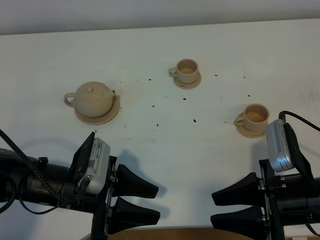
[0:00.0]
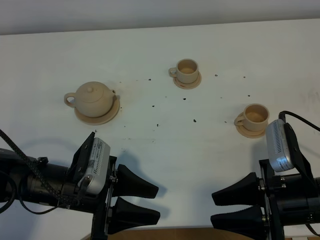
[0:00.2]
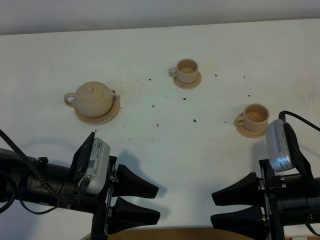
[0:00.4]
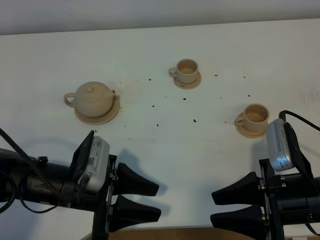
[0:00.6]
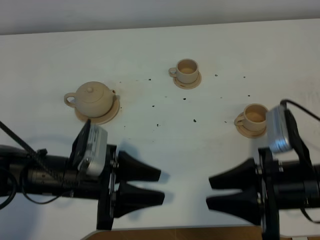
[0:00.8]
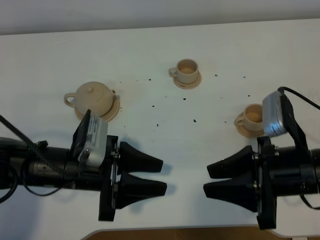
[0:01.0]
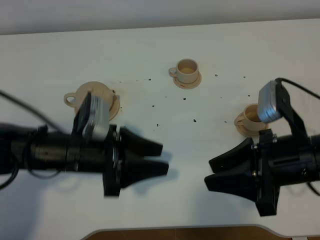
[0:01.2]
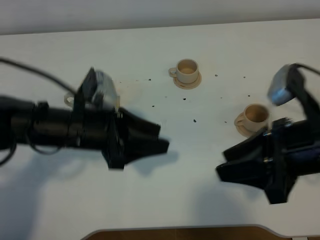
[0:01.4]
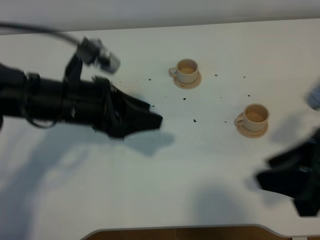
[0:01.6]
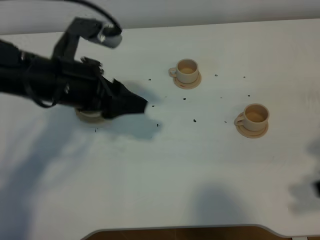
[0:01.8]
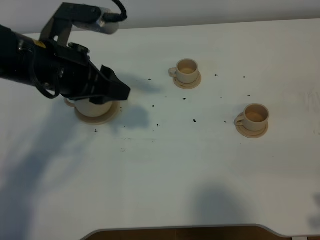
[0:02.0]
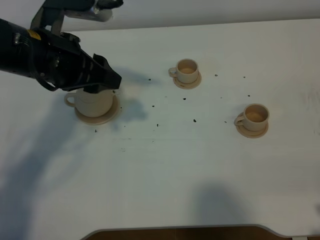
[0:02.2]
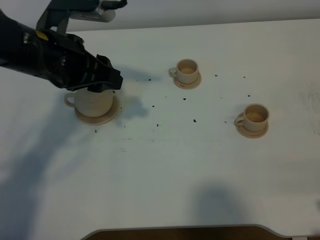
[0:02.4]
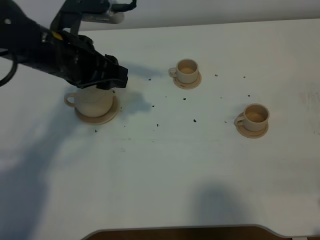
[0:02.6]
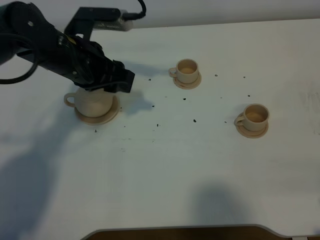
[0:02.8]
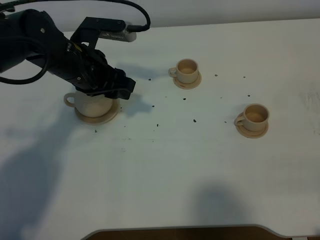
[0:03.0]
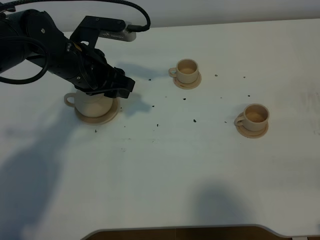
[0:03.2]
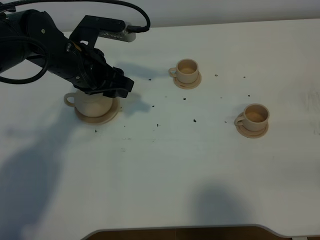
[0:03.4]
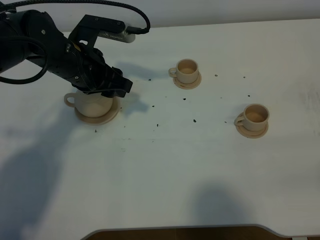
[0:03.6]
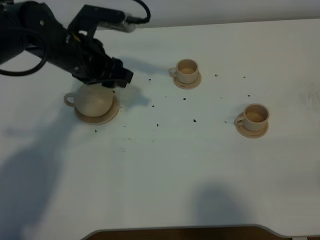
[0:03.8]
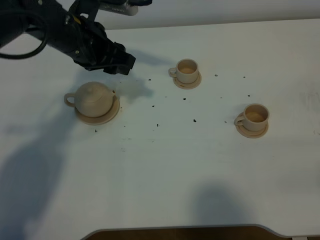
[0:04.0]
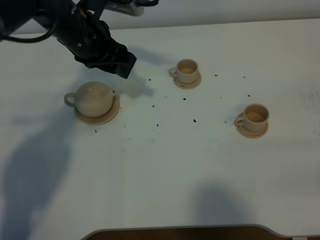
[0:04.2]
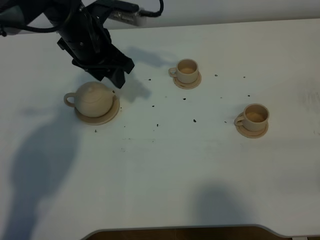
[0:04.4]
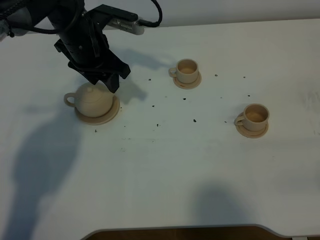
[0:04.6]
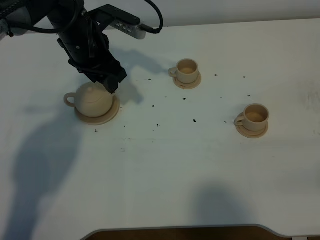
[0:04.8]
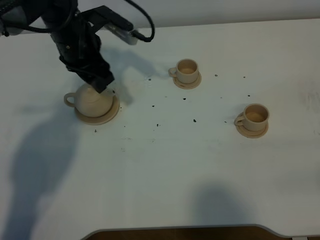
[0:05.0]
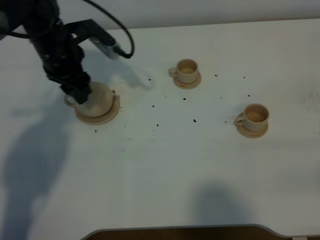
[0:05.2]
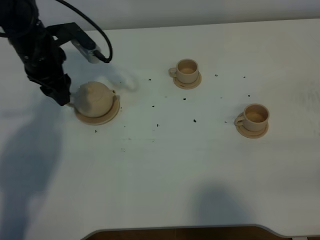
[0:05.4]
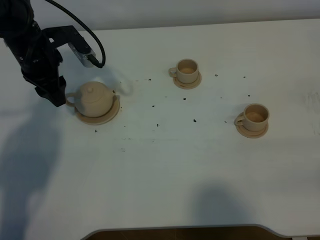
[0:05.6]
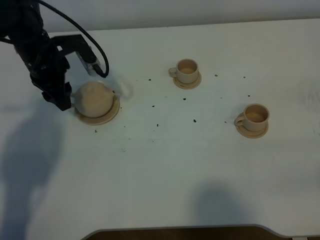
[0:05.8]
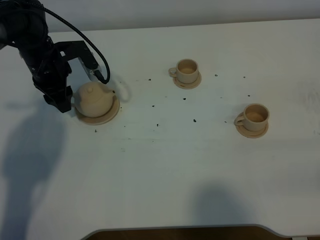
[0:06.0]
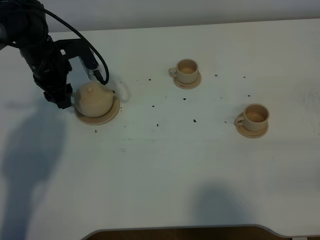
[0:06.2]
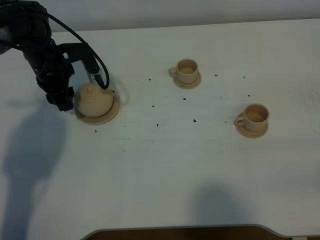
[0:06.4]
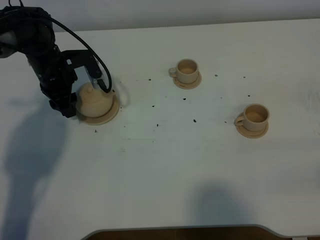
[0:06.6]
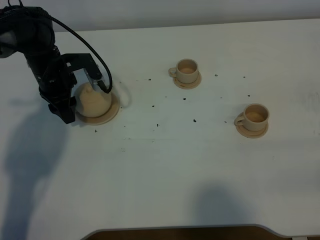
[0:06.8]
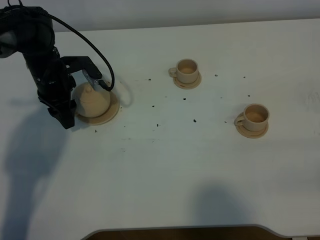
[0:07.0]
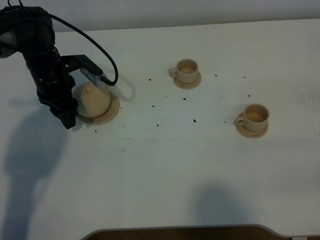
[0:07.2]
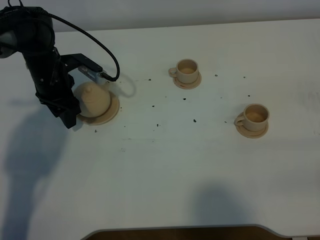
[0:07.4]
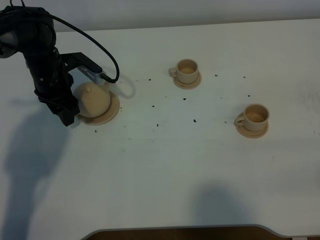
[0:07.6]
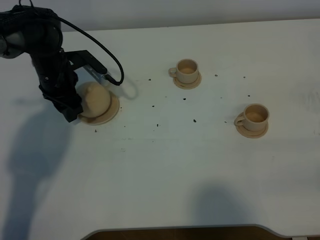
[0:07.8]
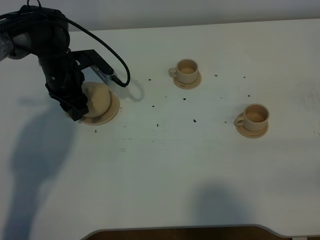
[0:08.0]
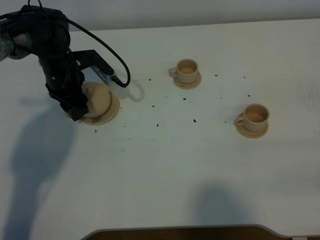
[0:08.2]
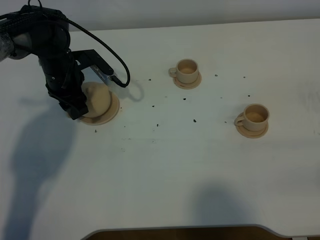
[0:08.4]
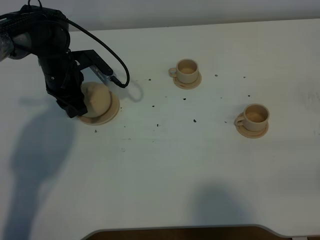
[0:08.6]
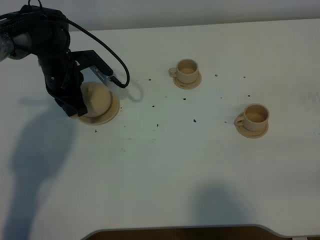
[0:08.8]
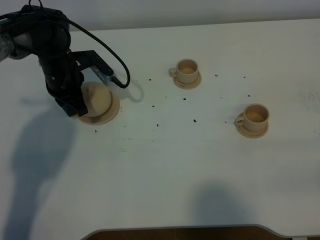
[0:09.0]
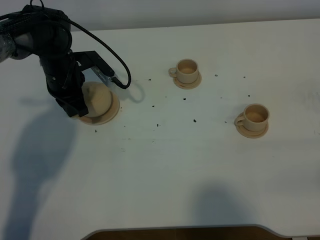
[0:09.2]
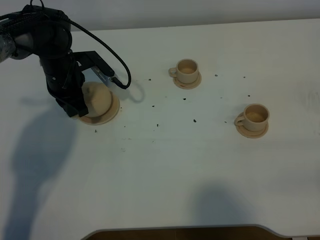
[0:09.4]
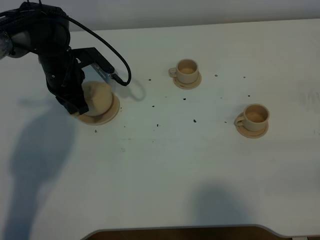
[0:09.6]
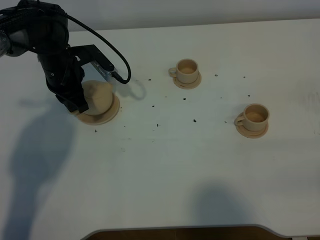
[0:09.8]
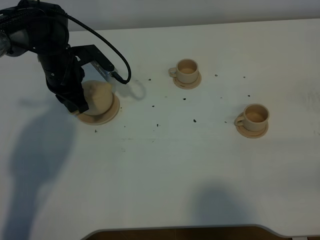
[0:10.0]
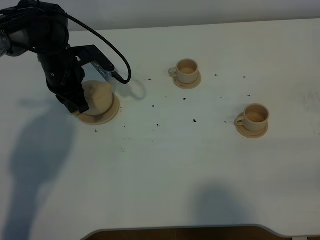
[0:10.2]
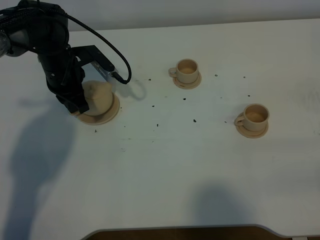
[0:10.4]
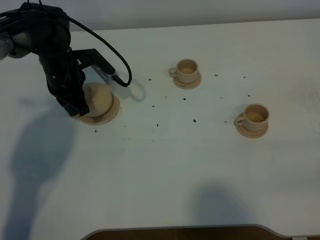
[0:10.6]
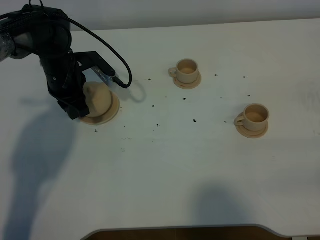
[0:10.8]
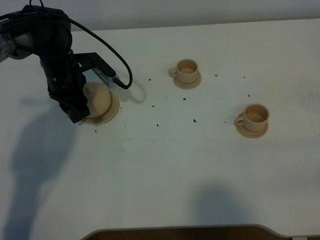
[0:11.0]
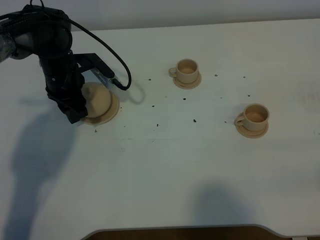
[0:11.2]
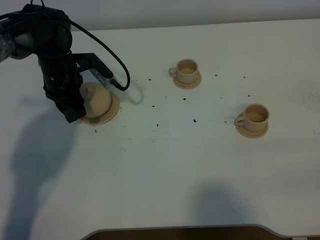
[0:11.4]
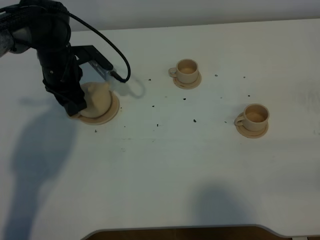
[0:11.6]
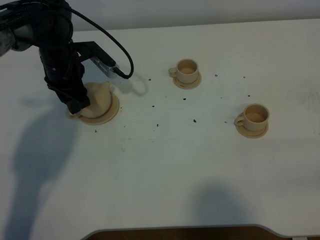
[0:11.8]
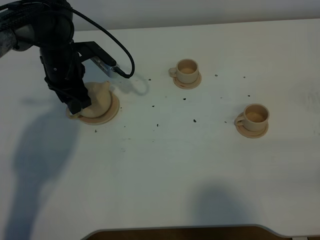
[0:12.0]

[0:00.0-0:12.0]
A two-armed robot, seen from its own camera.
Task of the whole recording: grasp the brown teapot and pour the tea into the two brown teacups one by one, put the brown teapot back in its original place.
0:00.0 to 0:01.6: The left gripper moves upward and forward, approximately 15 cm, while the right gripper is displaced upward by roughly 10 cm.
0:01.6 to 0:03.0: The right gripper is displaced backward and to the right by roughly 10 cm. The left gripper heads forward, covering some 10 cm.
0:03.0 to 0:04.4: The left gripper shifts roughly 5 cm forward.
0:04.4 to 0:06.0: The left gripper is displaced to the left and downward by some 10 cm.
0:06.0 to 0:07.6: The grippers move only a little.
0:07.6 to 0:09.0: The left gripper closes its fingers.
0:09.0 to 0:10.4: Both grippers stay put.
0:10.4 to 0:12.0: The left gripper opens up.

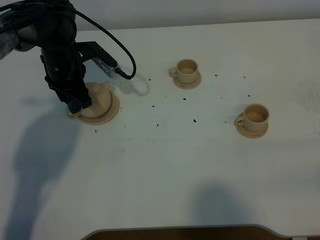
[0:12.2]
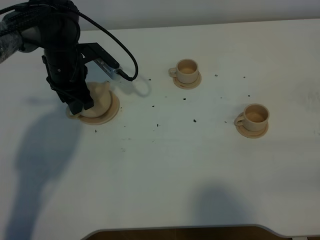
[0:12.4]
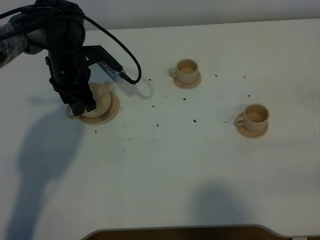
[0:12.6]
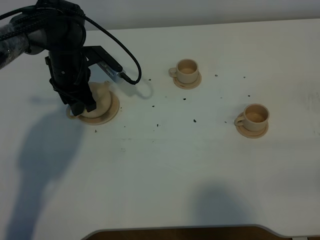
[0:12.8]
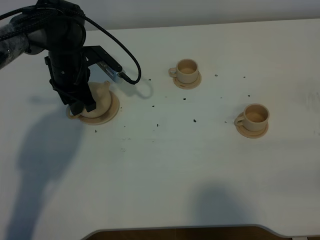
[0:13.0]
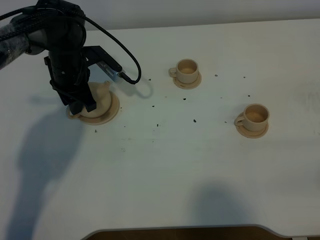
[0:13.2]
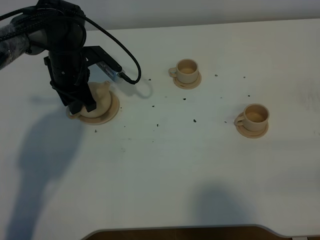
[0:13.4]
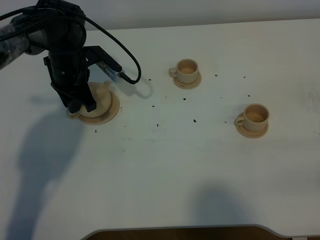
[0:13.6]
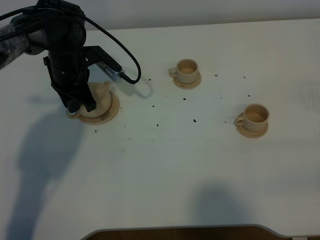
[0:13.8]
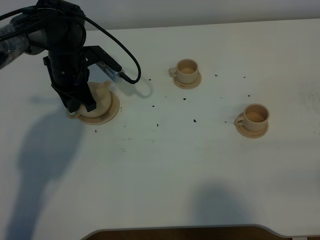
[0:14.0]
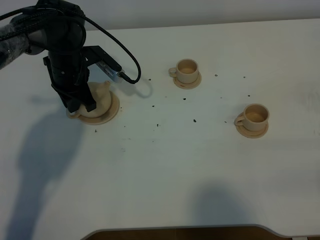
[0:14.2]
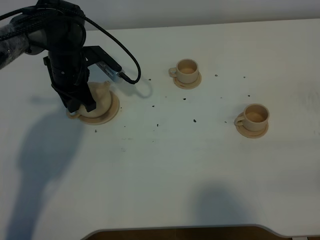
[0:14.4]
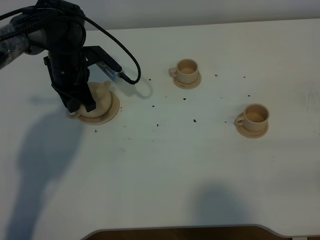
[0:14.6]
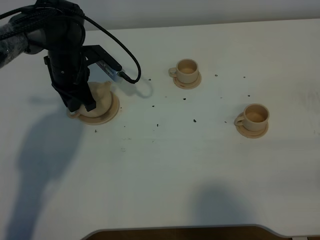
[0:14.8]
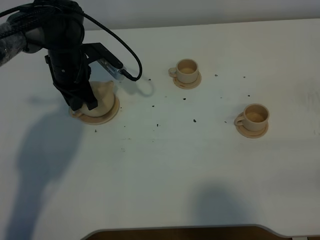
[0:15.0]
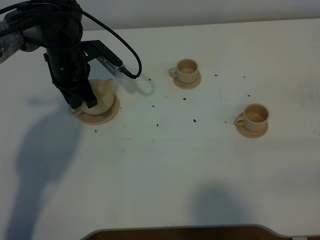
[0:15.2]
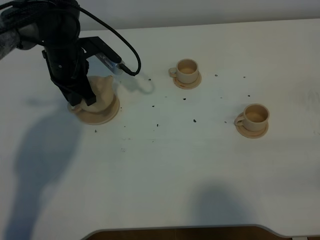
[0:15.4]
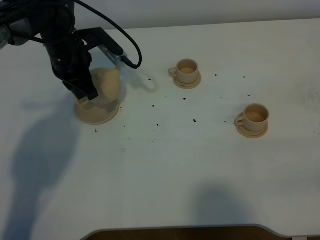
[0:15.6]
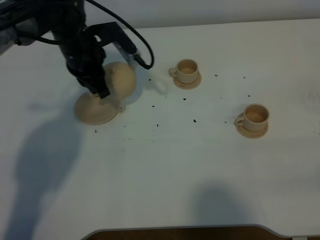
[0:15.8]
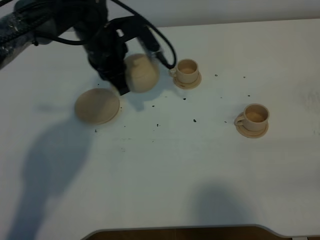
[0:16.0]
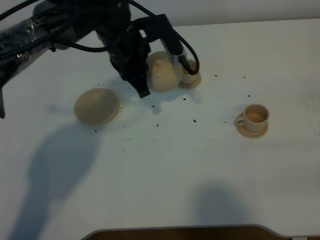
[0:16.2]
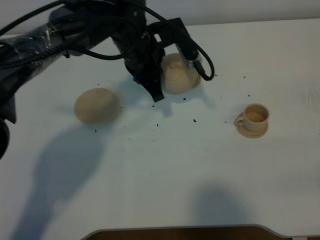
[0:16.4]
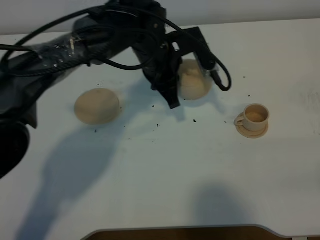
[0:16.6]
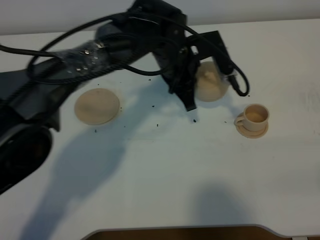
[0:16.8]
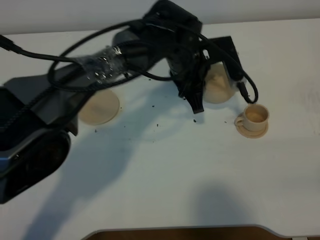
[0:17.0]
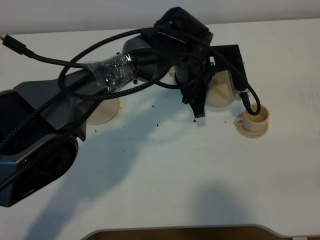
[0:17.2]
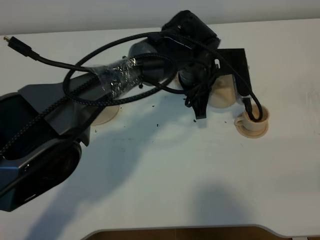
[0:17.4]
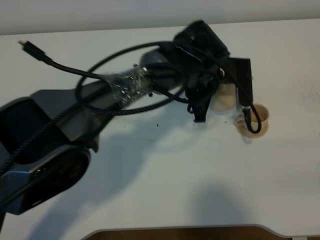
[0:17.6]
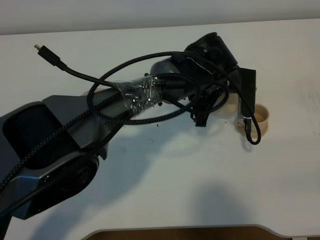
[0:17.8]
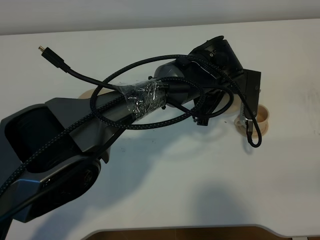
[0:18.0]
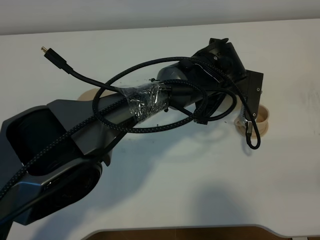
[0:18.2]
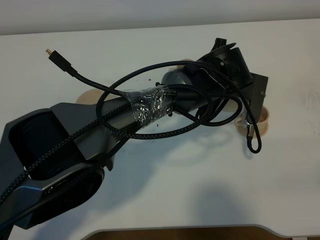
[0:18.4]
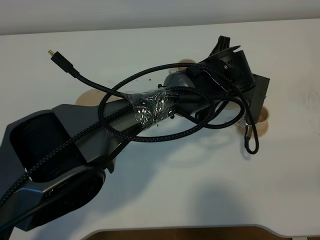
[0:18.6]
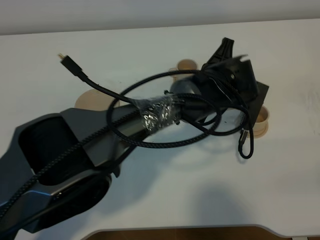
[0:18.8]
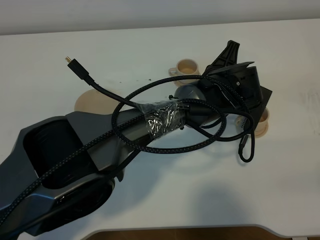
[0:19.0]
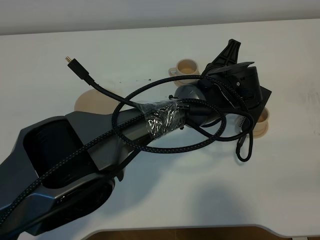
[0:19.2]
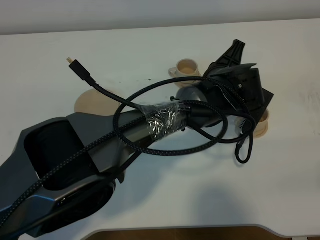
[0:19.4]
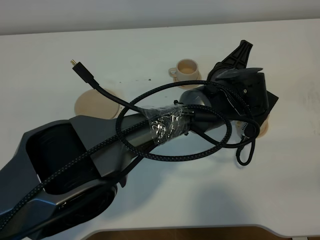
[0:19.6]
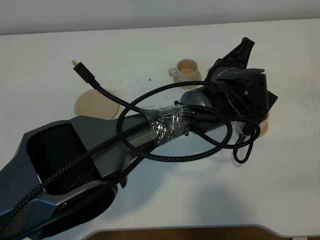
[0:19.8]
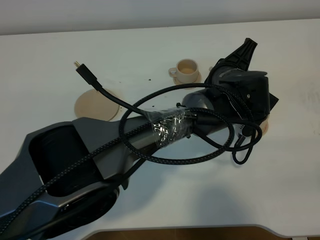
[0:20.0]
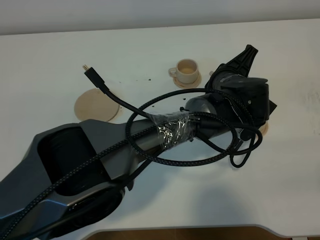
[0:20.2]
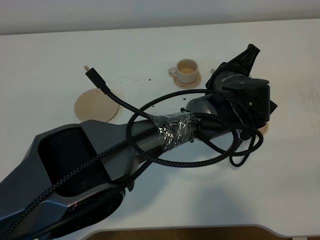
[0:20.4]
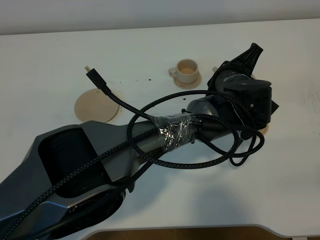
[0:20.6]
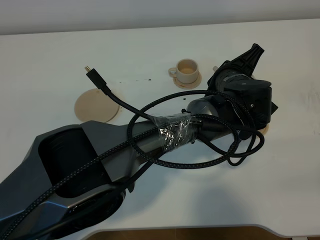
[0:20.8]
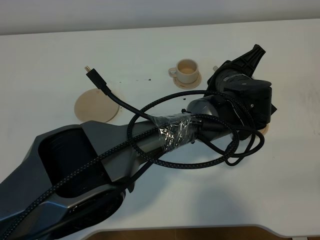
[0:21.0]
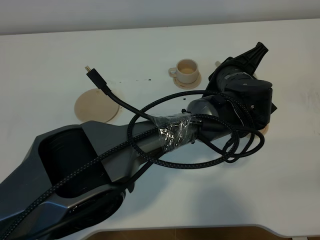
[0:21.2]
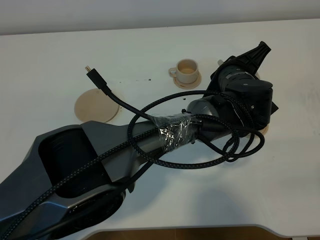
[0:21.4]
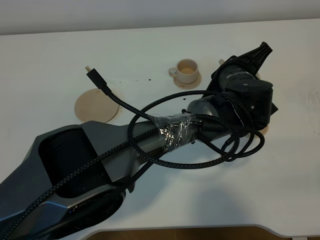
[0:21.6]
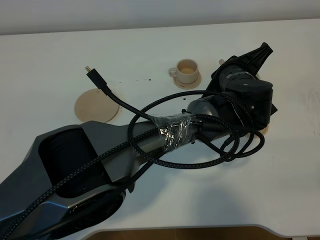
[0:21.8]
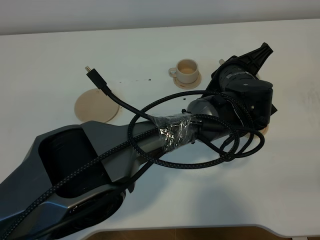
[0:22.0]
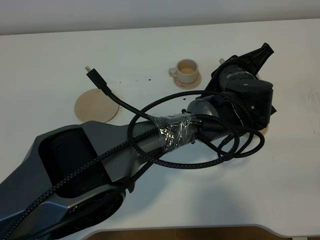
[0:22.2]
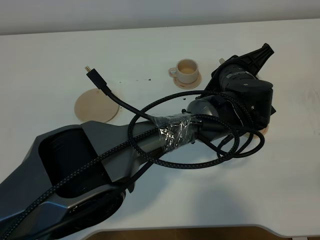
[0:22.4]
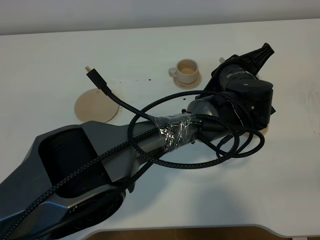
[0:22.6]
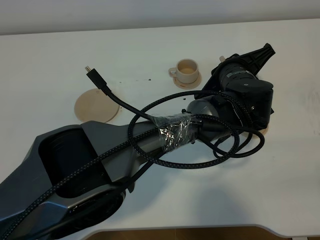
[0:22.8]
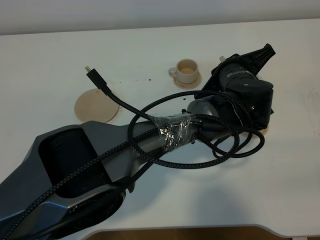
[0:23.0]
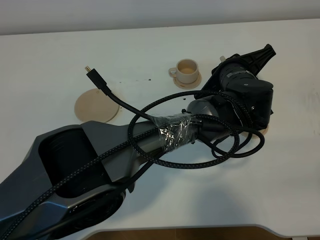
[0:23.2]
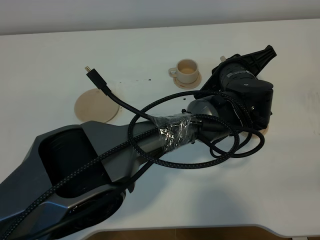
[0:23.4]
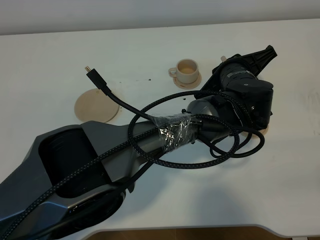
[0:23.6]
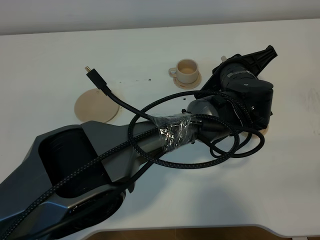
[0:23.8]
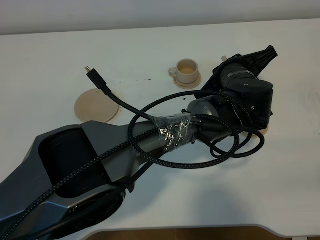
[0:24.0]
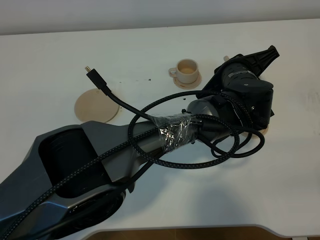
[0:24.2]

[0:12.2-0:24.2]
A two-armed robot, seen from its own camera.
Task of the whole recording: grasp the brown teapot and pour the tea into the two brown teacups one by one, put the brown teapot back in its original place.
Step, 0:12.2 to 0:15.4: Pick up the teapot with the left gripper.
0:12.2 to 0:13.8: The left gripper closes.
0:13.8 to 0:15.2: Both grippers stay put.
0:15.2 to 0:16.6: The left gripper goes some 20 cm to the right.
0:16.6 to 0:18.2: The left gripper shifts about 10 cm to the right.
0:19.8 to 0:21.2: The grippers move only a little.
0:21.2 to 0:24.2: The grippers make only small movements.
